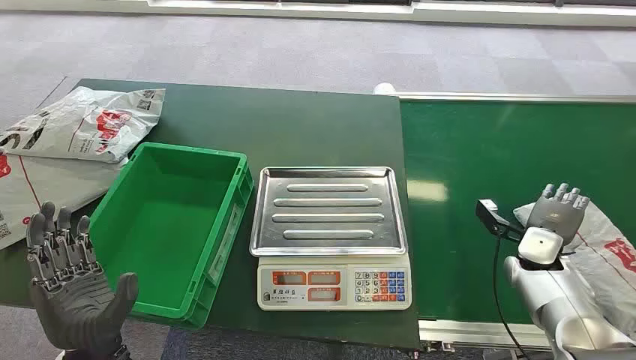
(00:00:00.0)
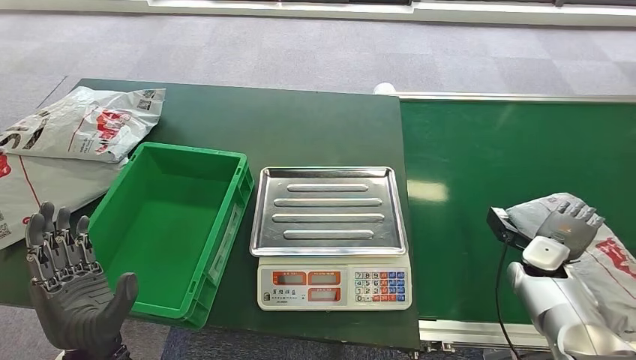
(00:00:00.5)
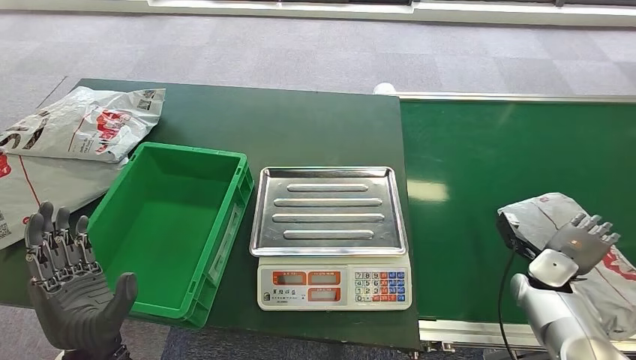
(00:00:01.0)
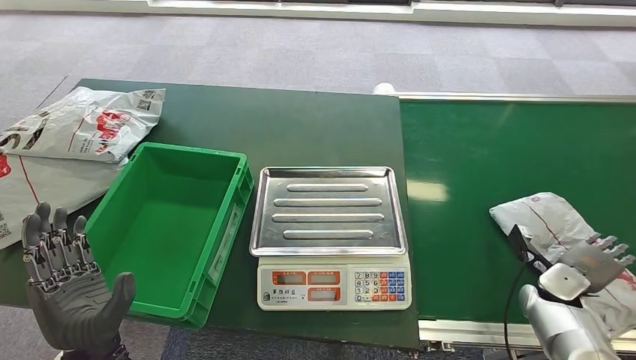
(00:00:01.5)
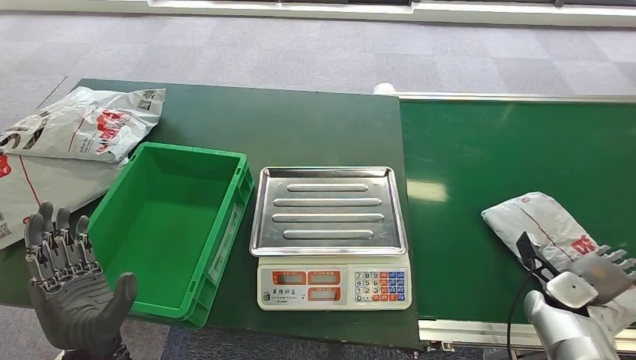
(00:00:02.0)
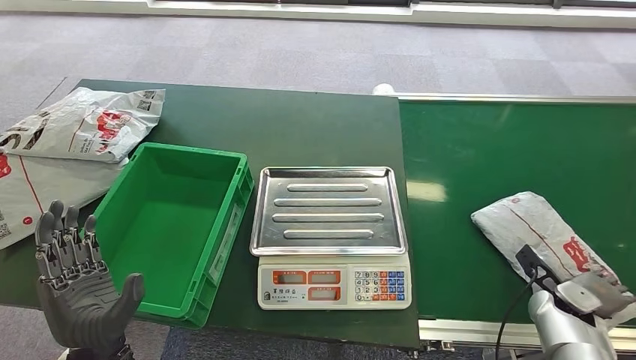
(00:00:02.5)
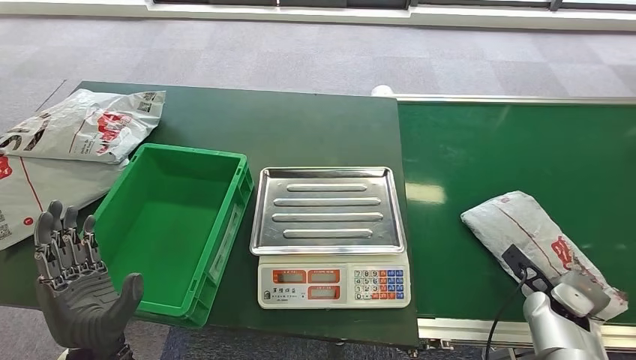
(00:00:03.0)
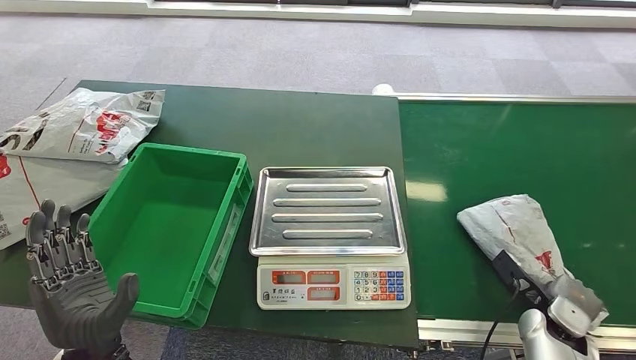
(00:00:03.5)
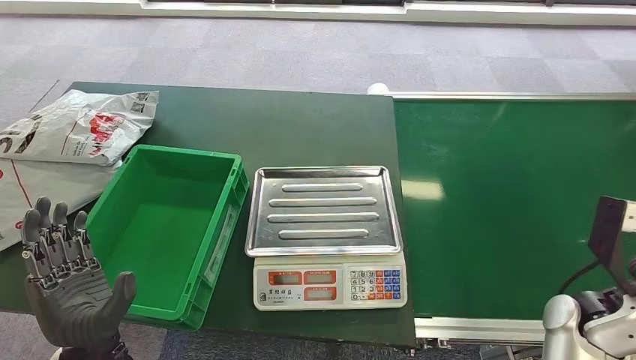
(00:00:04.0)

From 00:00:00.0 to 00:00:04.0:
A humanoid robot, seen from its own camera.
Step, from 00:00:00.0 to 00:00:04.0: Pick up the package from the conveyor belt.
From 00:00:02.0 to 00:00:04.0: The right hand travels upward and to the left by some 15 cm.
